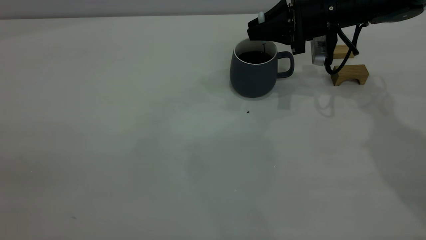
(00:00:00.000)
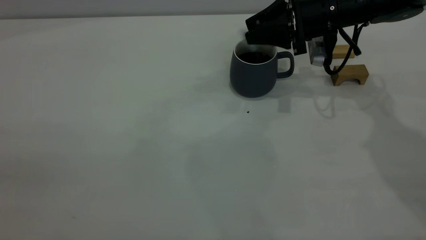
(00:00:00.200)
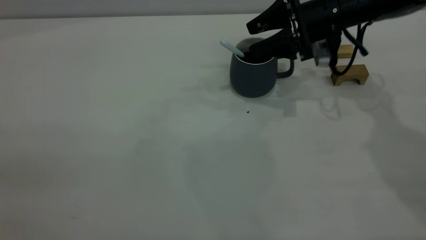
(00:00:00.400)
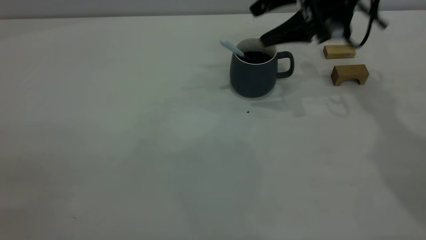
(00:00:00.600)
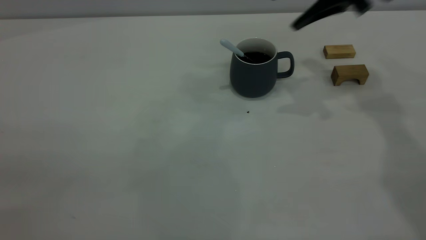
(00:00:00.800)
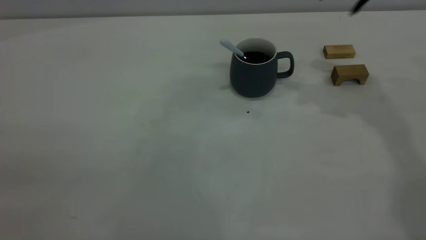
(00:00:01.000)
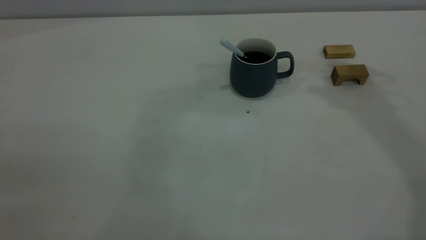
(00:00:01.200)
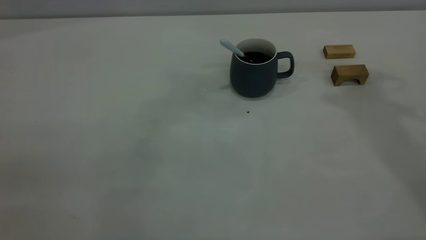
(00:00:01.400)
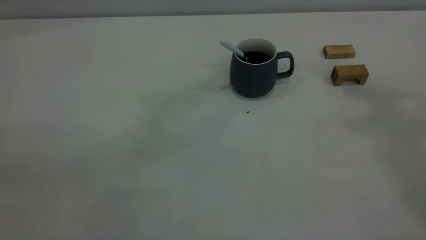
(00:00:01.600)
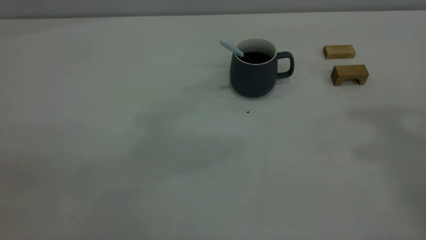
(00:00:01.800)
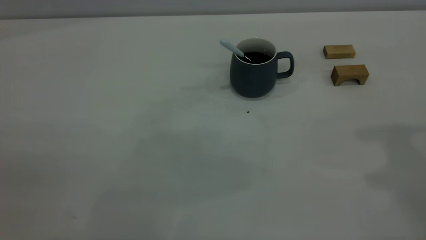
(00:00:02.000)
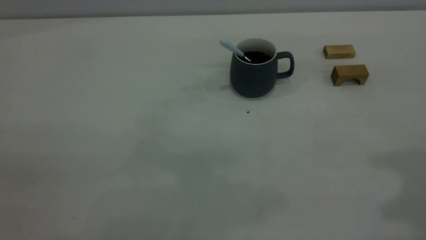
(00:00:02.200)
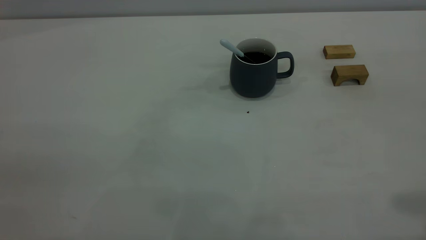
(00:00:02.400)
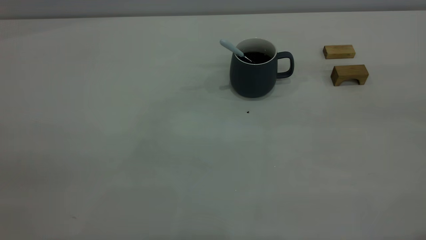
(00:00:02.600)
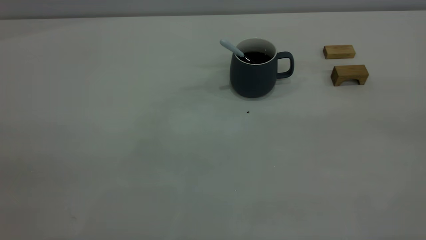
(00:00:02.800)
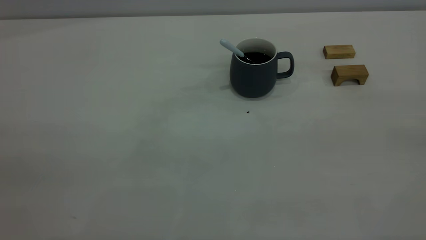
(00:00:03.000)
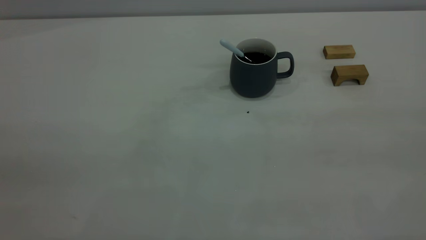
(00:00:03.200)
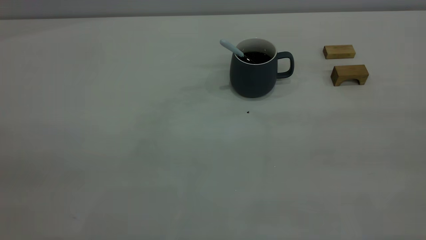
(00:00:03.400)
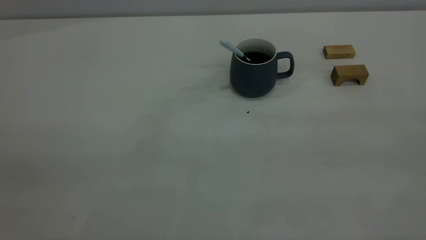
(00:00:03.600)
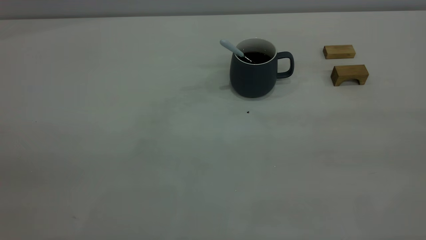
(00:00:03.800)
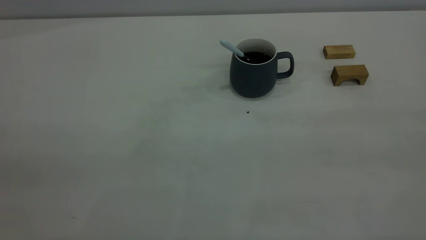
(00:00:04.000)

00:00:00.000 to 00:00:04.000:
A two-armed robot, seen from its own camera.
00:00:00.000 to 00:00:01.400: The right gripper is displaced upward by about 30 cm, and opens, then closes once more.
